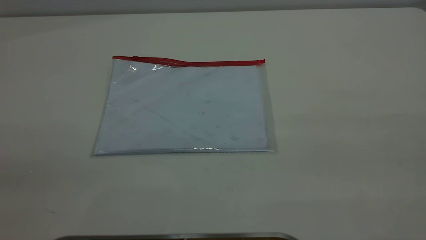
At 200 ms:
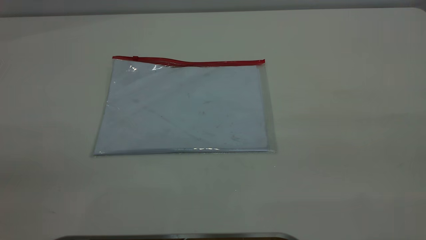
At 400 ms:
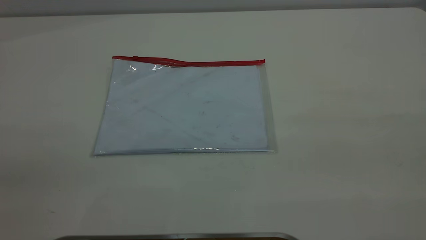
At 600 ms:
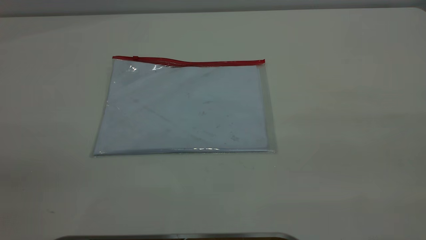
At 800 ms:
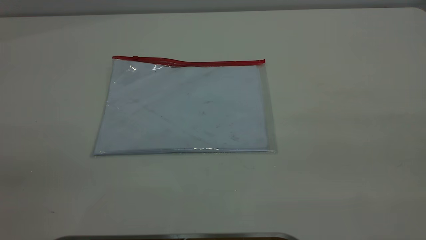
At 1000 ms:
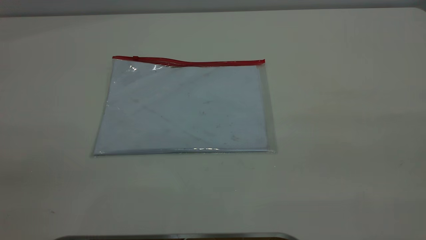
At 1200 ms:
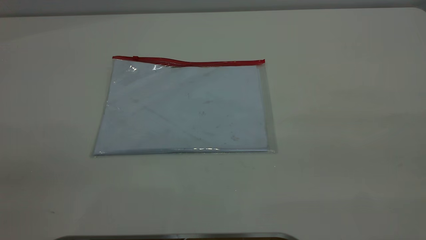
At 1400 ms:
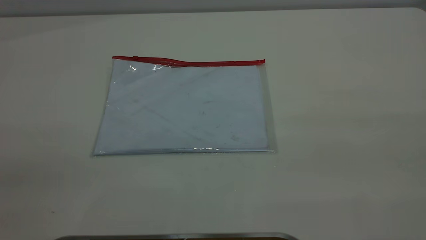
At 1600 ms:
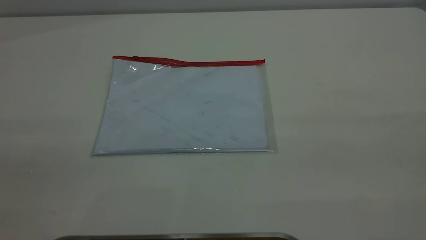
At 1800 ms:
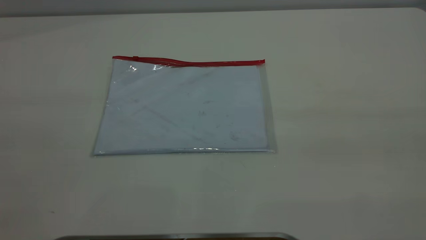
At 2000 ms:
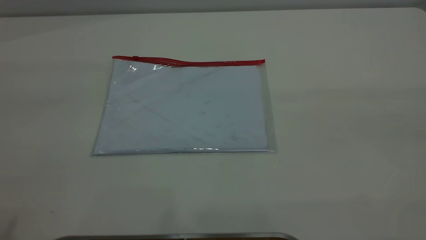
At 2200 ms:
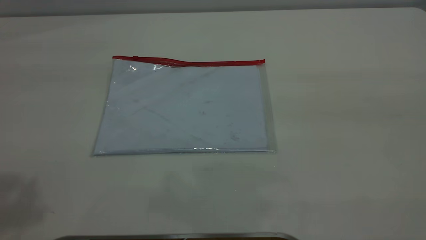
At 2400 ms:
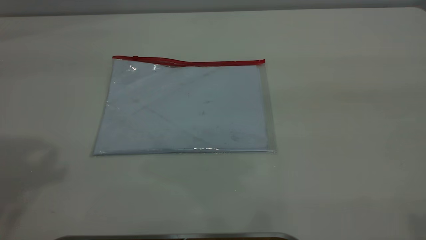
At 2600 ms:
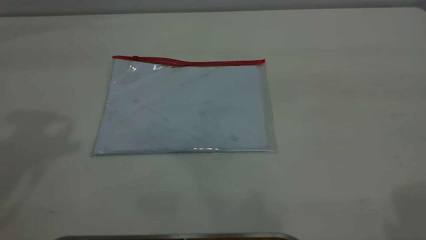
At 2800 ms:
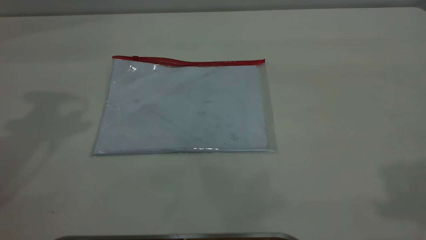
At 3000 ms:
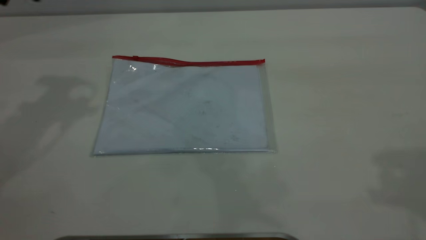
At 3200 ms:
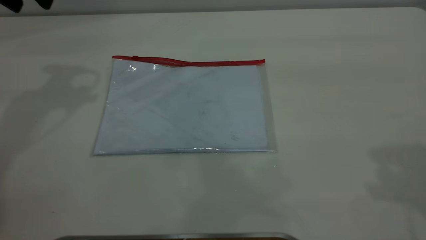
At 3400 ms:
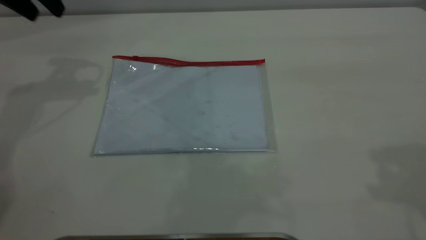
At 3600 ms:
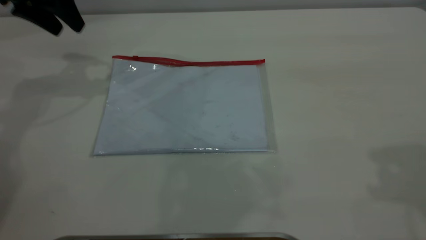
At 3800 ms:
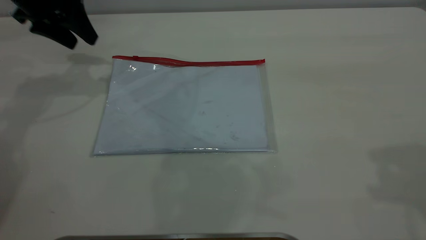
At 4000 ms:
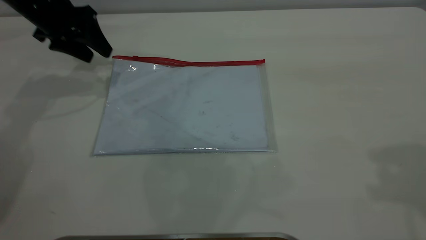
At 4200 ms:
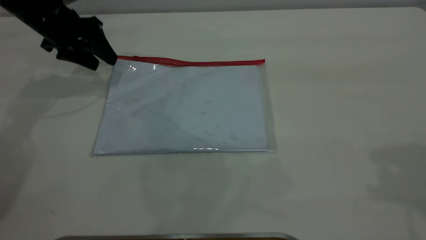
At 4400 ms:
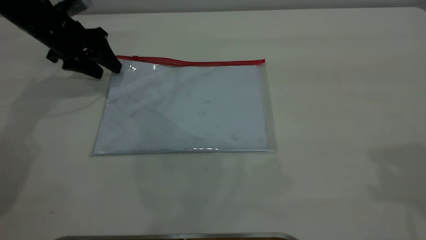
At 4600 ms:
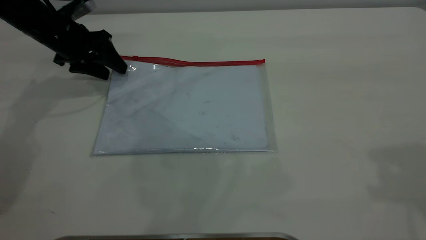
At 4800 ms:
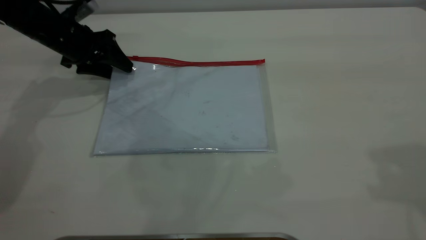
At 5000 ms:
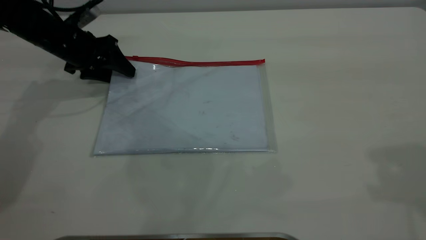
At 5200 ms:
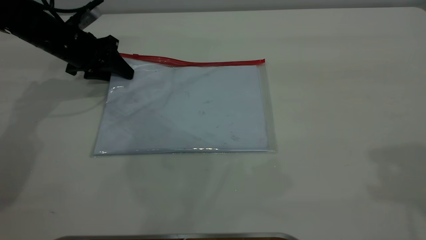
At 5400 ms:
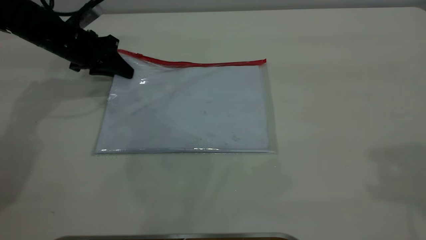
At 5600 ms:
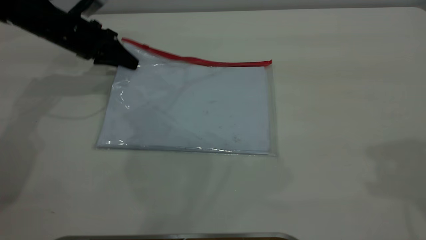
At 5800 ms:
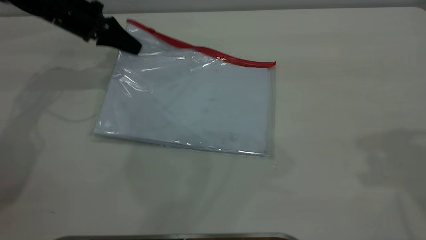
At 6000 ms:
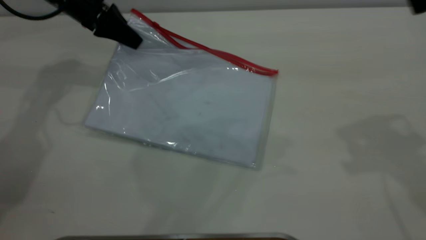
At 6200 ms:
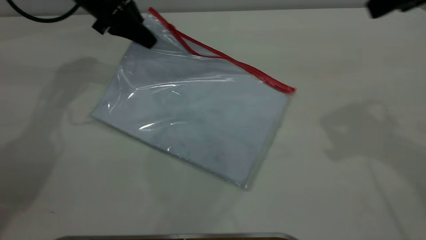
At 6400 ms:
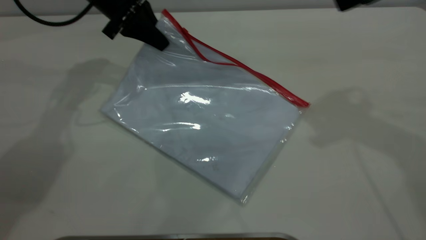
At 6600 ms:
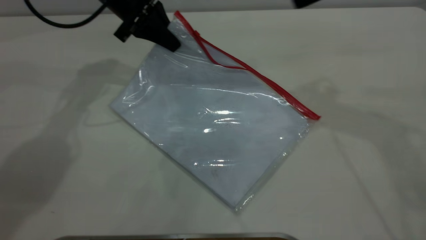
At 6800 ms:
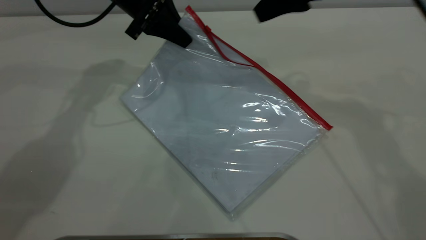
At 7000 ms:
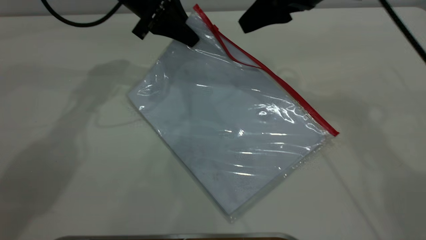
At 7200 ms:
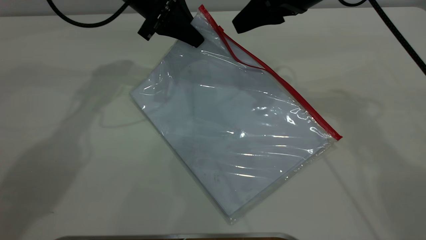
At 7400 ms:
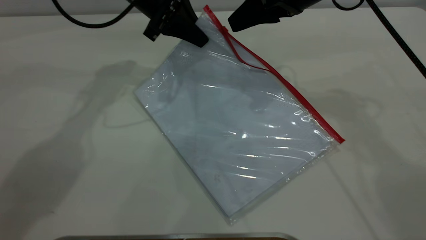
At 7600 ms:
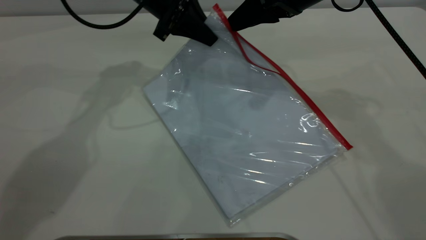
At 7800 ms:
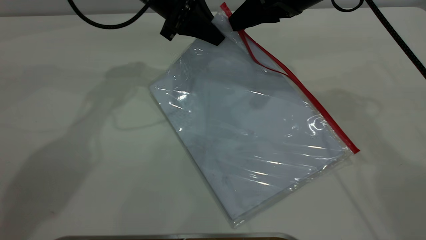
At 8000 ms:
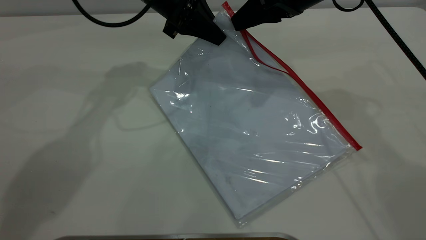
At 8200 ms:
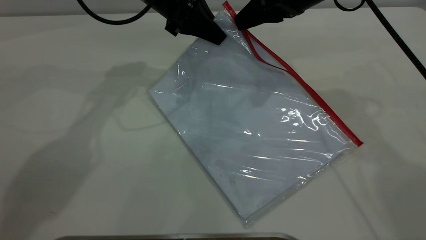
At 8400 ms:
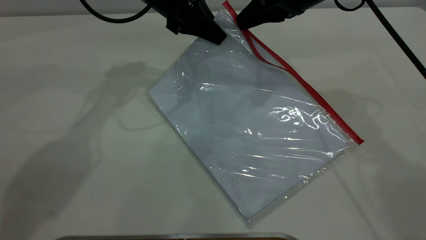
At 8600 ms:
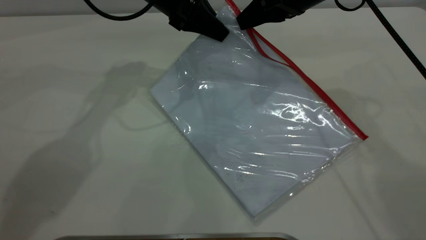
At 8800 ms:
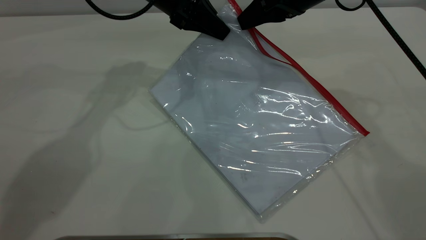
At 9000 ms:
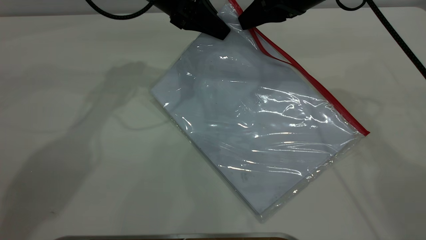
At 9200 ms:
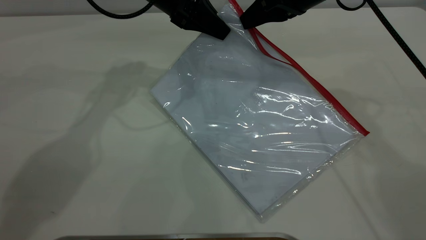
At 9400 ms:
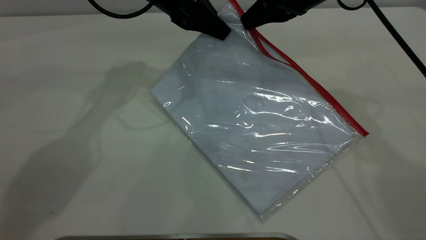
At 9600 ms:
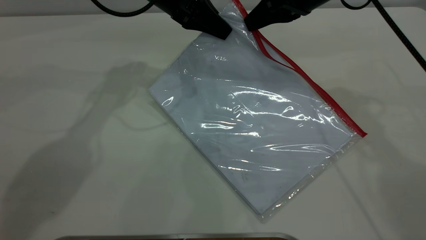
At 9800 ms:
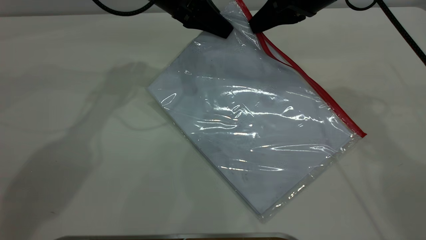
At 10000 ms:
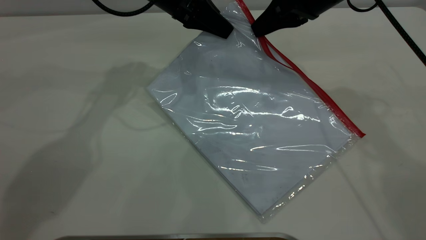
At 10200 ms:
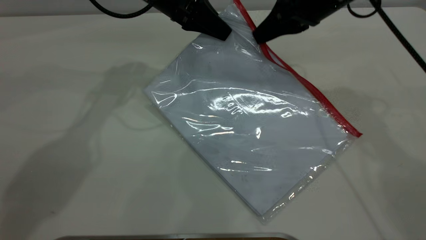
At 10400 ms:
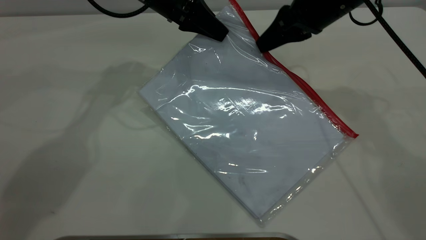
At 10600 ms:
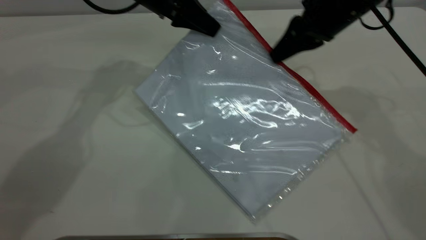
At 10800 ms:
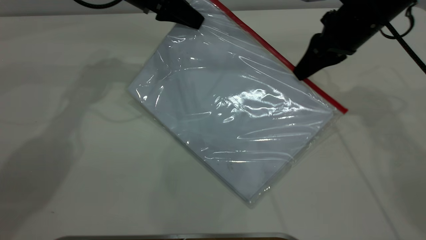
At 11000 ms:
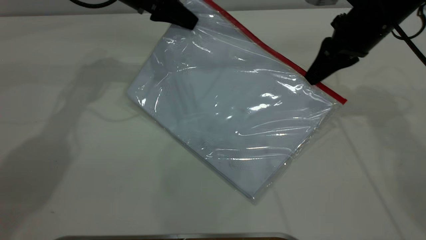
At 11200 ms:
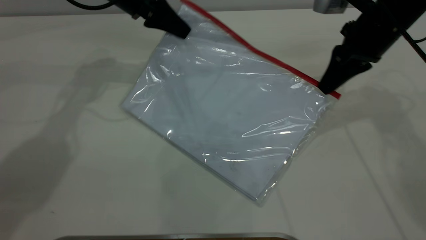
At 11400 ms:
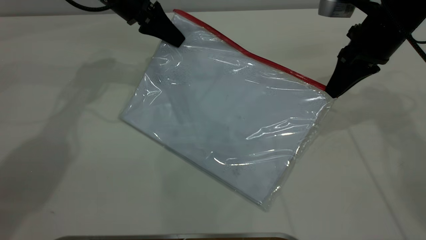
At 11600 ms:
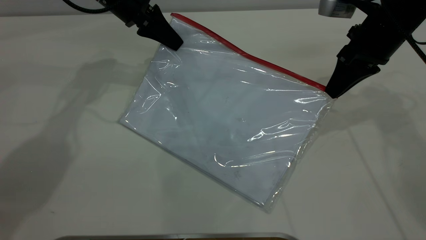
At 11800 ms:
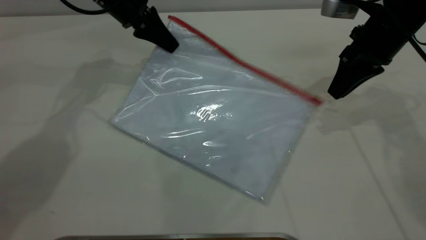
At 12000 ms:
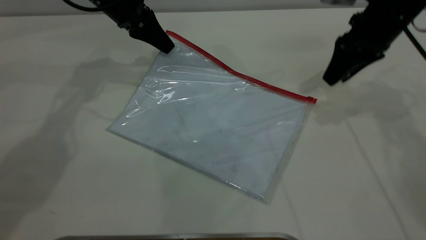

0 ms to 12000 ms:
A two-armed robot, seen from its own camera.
Step, 0 ms to 5800 ms: Pick up the transparent plastic bag with the left gripper.
Step, 6000 ms to 11600 ms: Pulling up the zipper on the transparent plastic bag with the right gripper to close it.
3000 ms to 4400 ms: The left gripper travels downward by about 20 cm.
4400 ms to 6000 ms: The left gripper shifts by some 10 cm, and closes. Meanwhile the right gripper is displaced forward and downward by roughly 10 cm.
6000 ms to 7600 ms: The right gripper travels forward, to the left and downward by approximately 20 cm, while the left gripper travels to the right by roughly 15 cm.
7600 ms to 9000 ms: The right gripper closes.
9000 ms to 10400 ms: The grippers make only small movements.
10400 ms to 12000 ms: The right gripper shifts roughly 5 cm to the right, and opens up; the left gripper travels to the left by approximately 5 cm, and opens its fingers.

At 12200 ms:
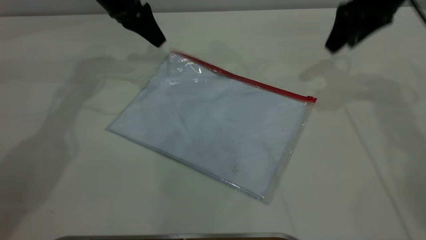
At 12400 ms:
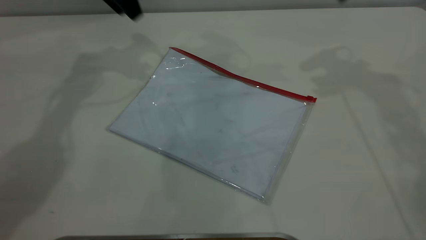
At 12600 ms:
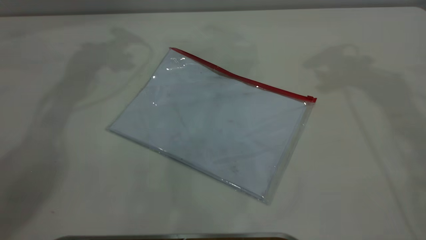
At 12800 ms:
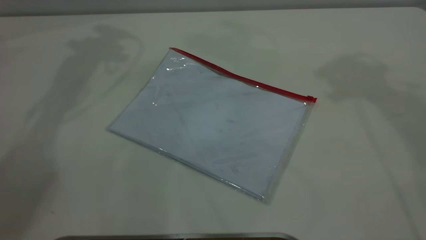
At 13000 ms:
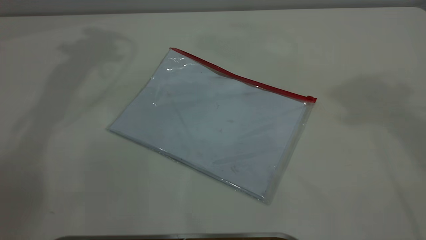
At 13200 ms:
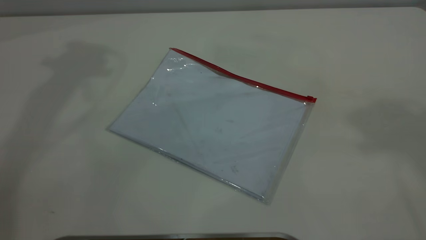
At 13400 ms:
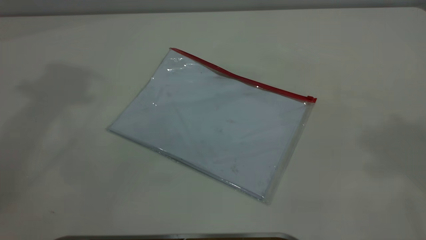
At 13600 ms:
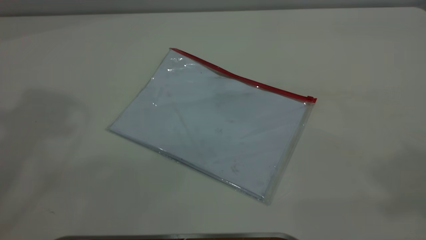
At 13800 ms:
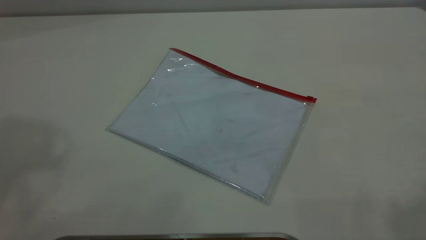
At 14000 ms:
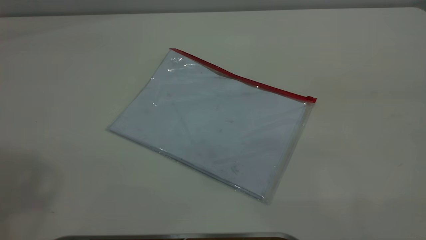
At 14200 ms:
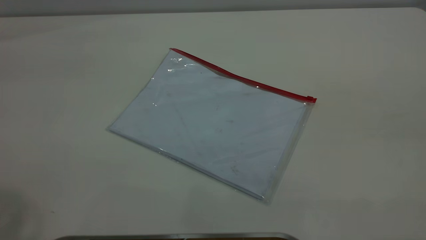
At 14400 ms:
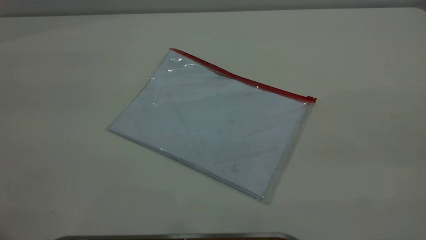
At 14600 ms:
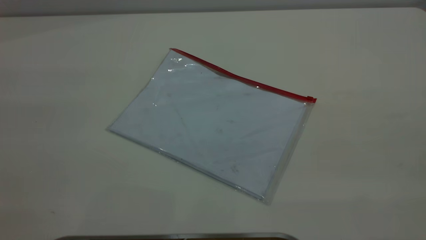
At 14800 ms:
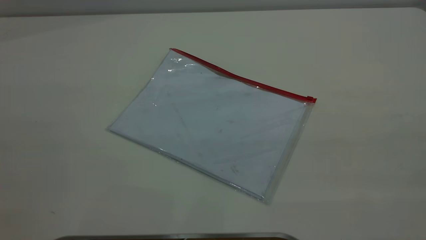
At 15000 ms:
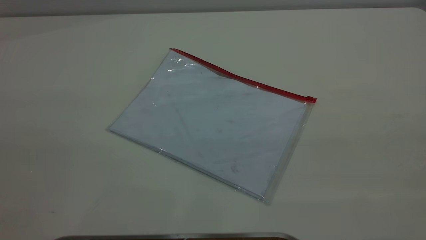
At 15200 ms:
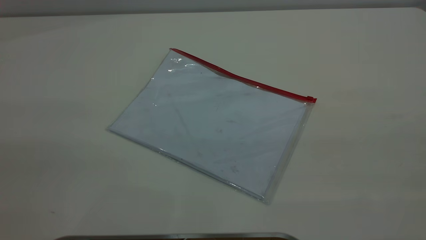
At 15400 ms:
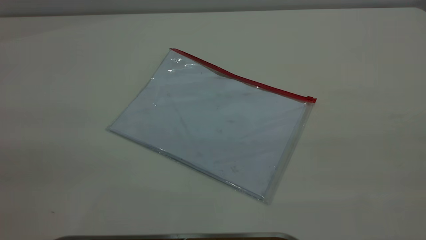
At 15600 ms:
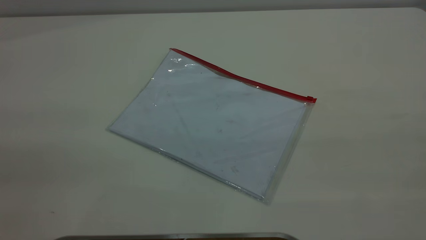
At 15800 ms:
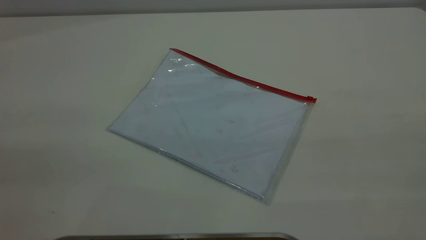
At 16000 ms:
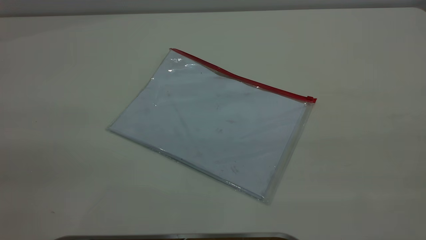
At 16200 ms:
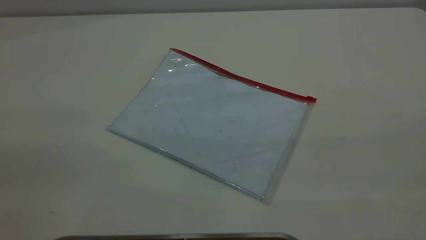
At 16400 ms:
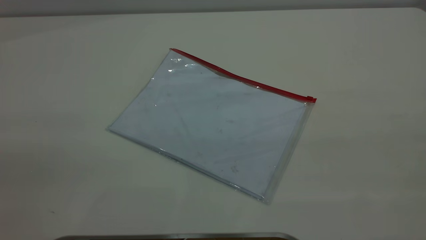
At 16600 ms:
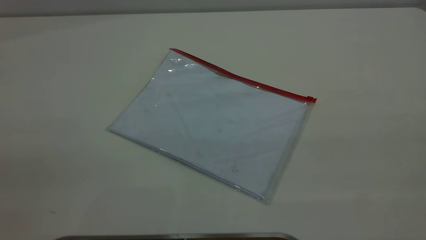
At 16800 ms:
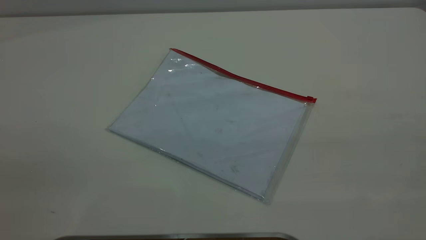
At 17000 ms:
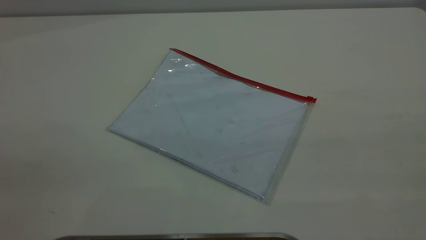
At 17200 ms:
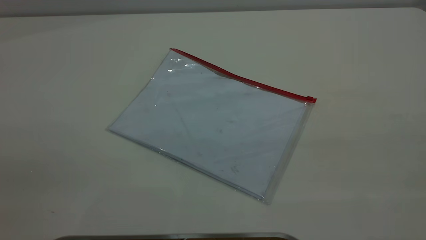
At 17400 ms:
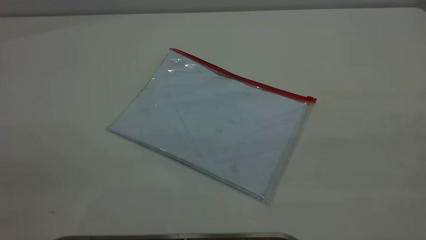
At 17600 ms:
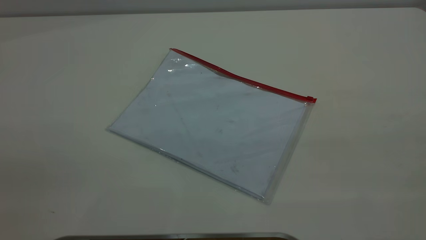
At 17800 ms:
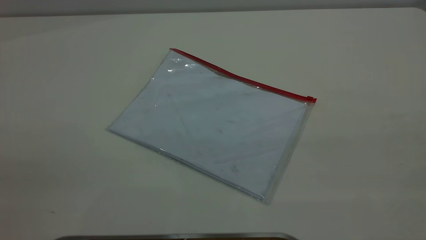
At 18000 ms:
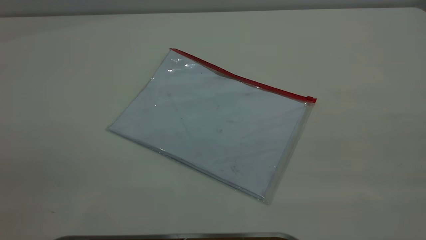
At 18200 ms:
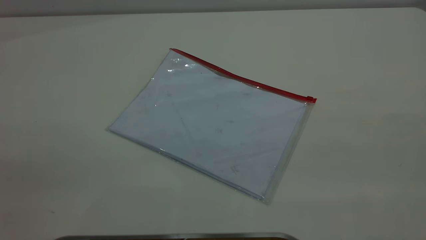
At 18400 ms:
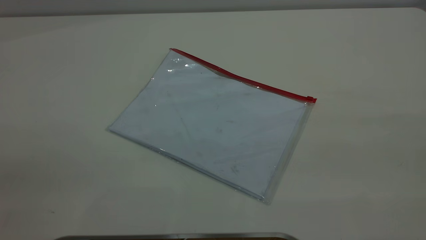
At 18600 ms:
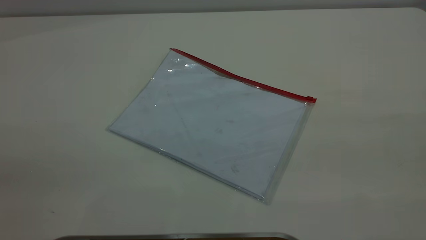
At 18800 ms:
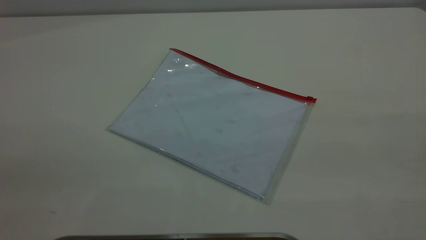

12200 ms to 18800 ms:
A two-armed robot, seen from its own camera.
12200 ms to 13800 ms: The left gripper travels upward and backward by roughly 50 cm. The right gripper shifts roughly 50 cm backward and upward.
